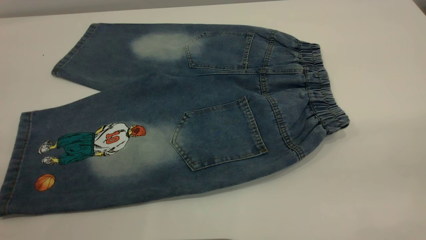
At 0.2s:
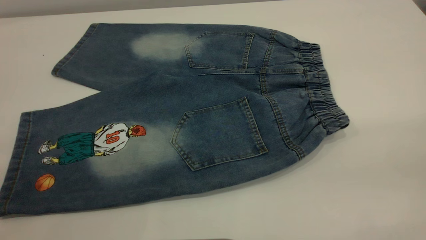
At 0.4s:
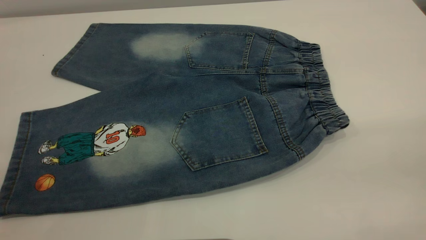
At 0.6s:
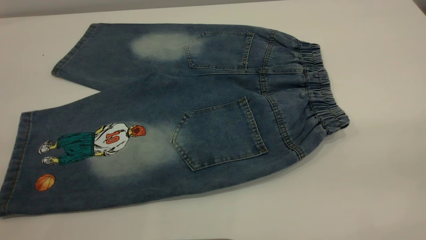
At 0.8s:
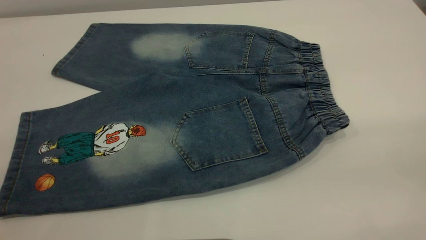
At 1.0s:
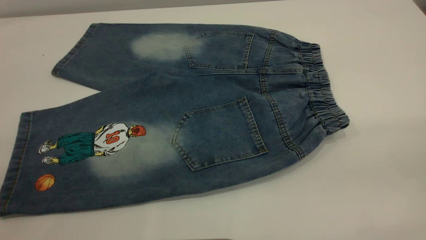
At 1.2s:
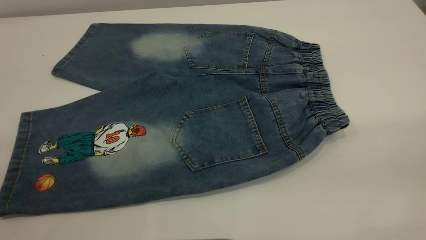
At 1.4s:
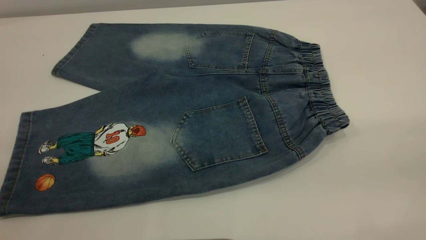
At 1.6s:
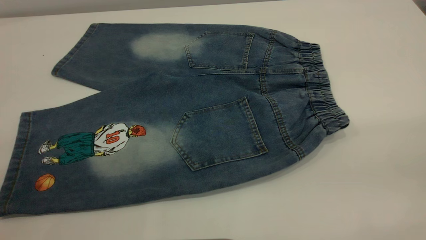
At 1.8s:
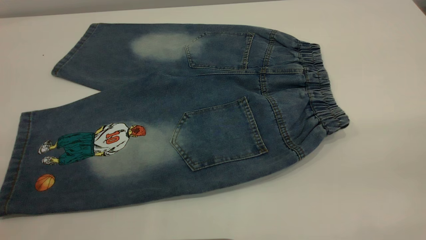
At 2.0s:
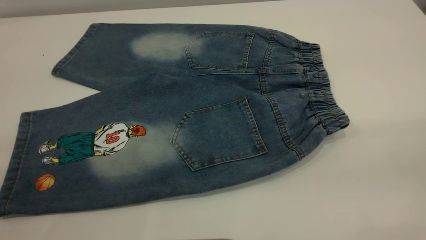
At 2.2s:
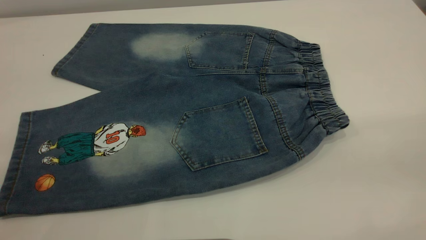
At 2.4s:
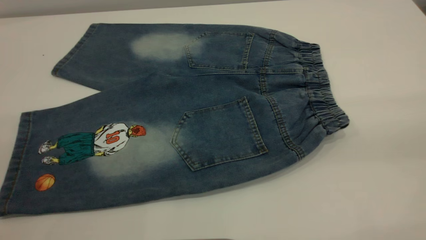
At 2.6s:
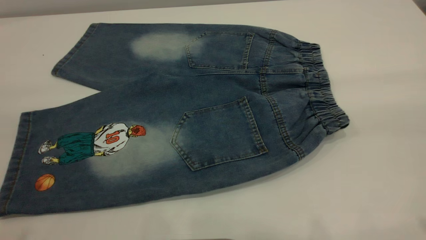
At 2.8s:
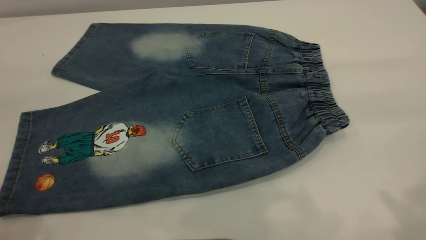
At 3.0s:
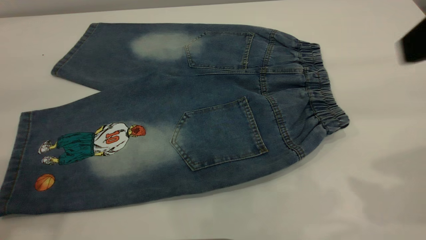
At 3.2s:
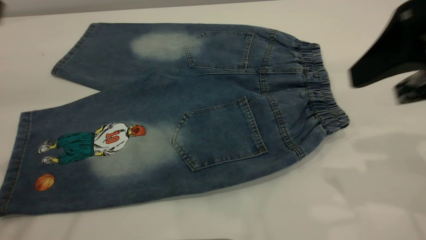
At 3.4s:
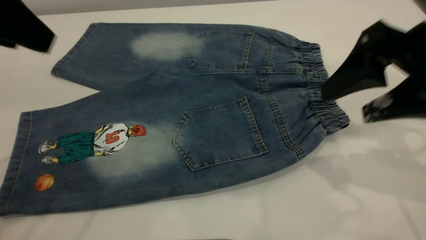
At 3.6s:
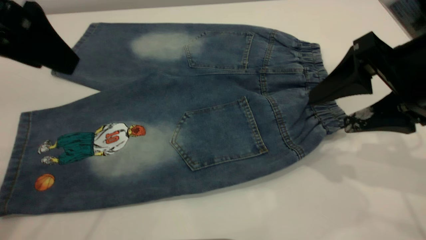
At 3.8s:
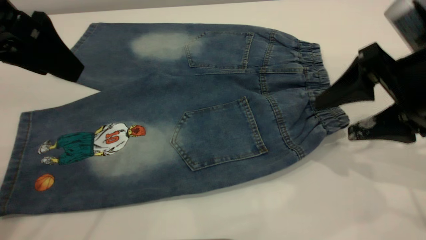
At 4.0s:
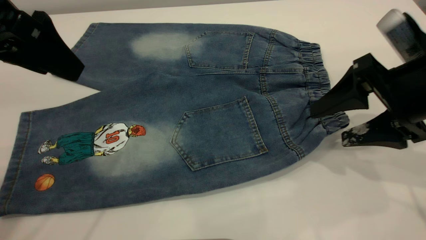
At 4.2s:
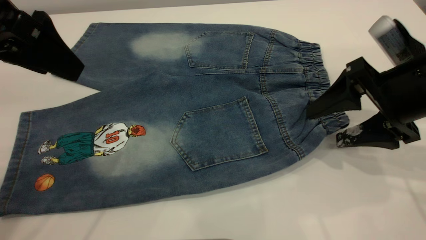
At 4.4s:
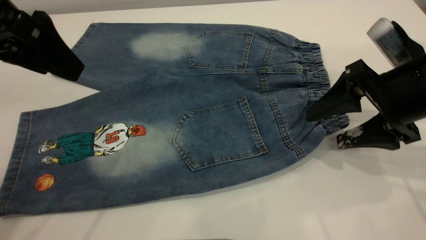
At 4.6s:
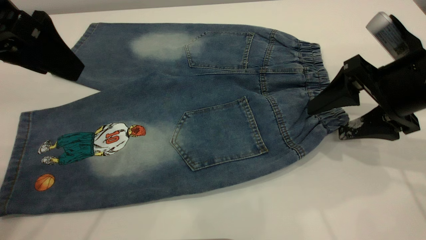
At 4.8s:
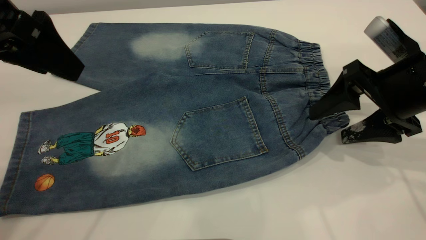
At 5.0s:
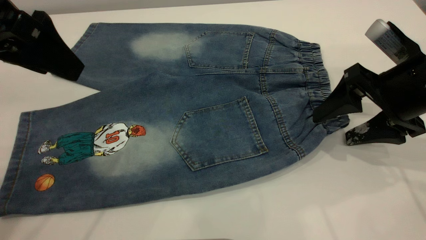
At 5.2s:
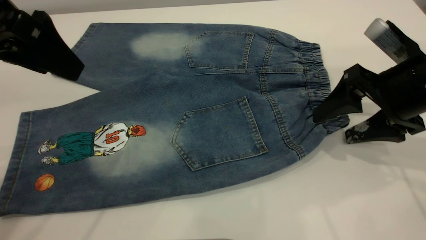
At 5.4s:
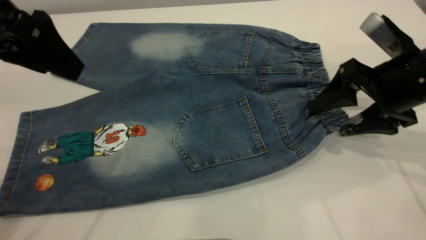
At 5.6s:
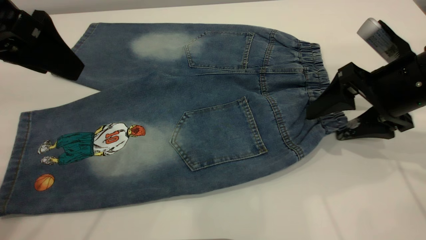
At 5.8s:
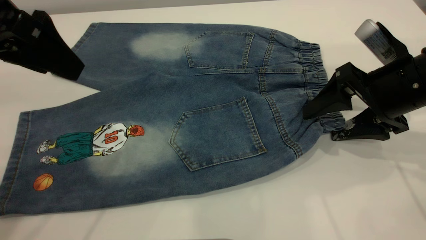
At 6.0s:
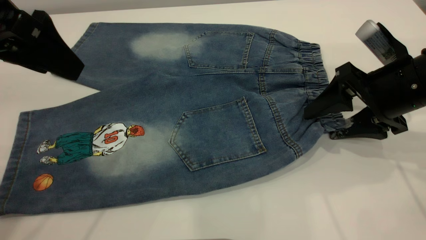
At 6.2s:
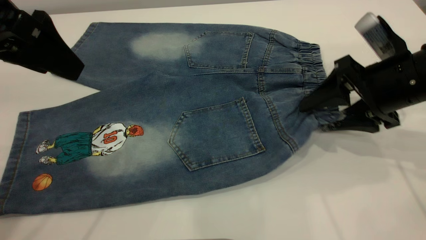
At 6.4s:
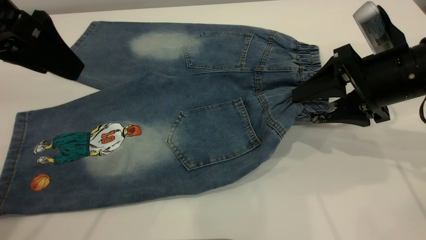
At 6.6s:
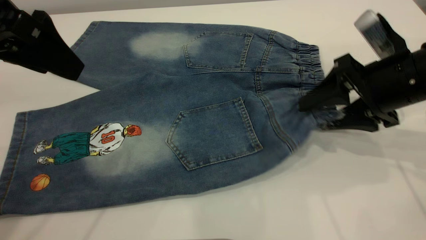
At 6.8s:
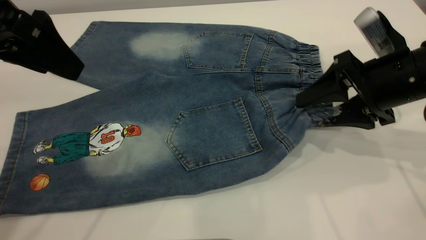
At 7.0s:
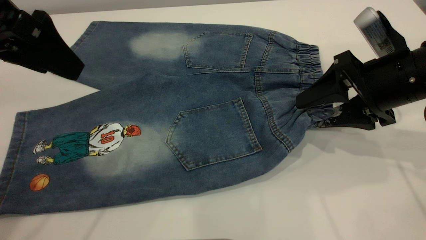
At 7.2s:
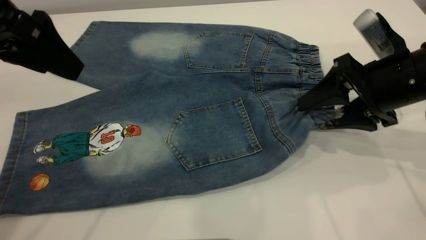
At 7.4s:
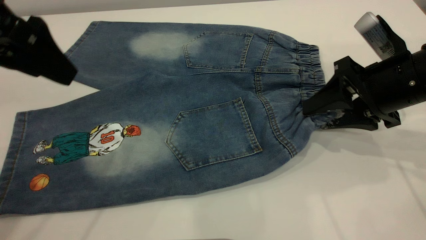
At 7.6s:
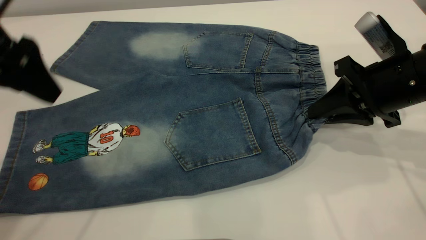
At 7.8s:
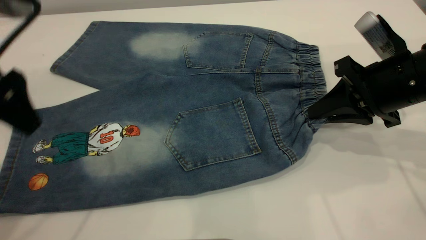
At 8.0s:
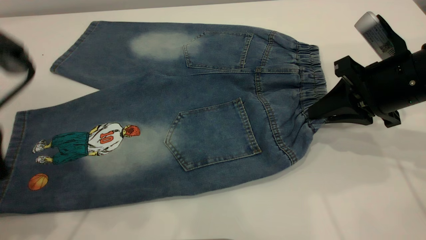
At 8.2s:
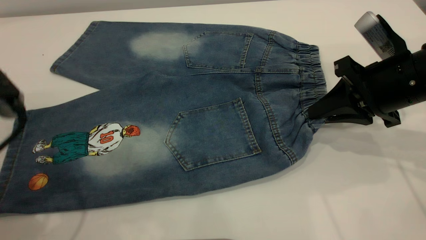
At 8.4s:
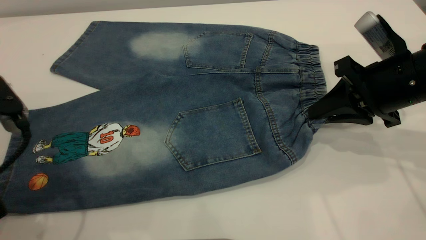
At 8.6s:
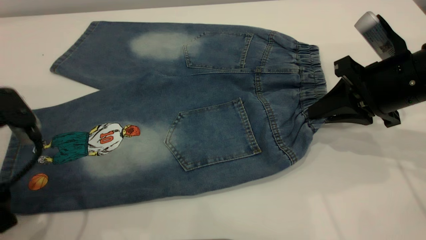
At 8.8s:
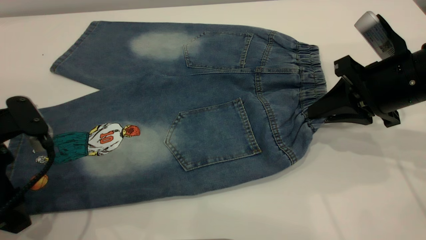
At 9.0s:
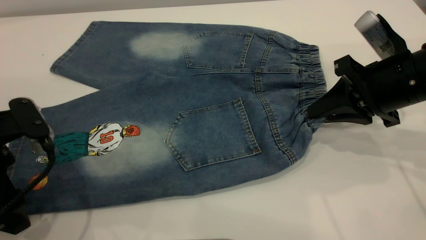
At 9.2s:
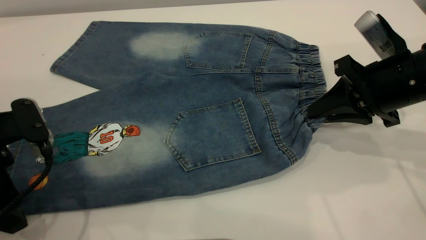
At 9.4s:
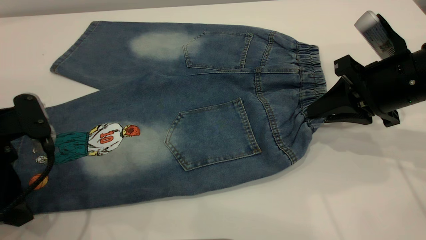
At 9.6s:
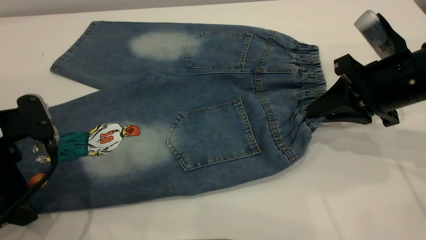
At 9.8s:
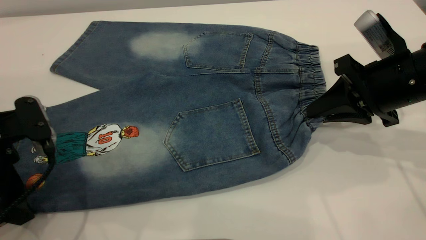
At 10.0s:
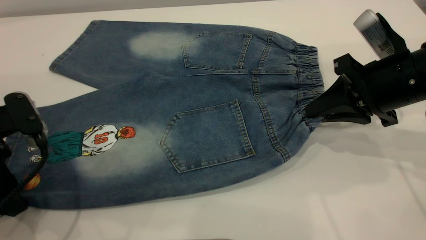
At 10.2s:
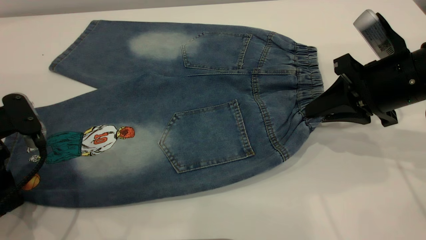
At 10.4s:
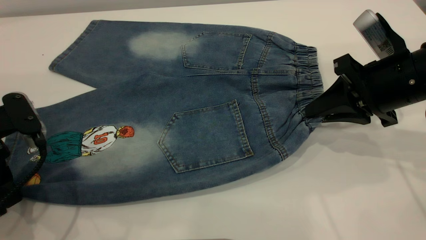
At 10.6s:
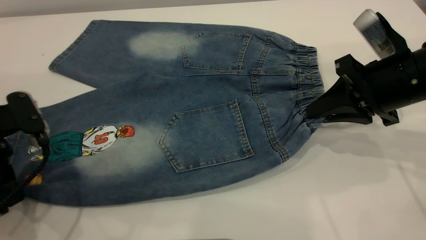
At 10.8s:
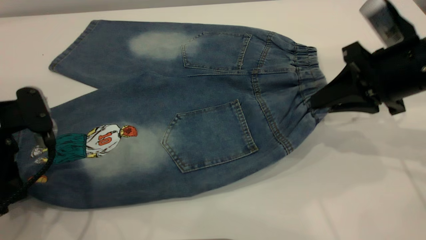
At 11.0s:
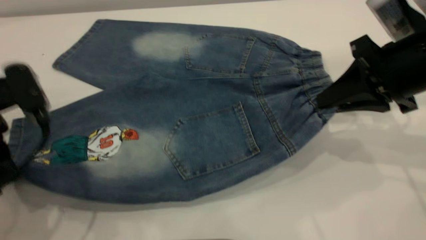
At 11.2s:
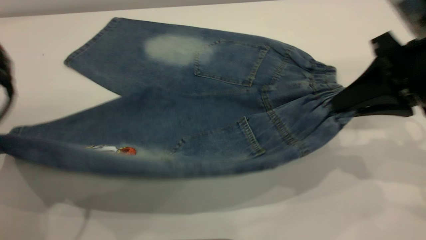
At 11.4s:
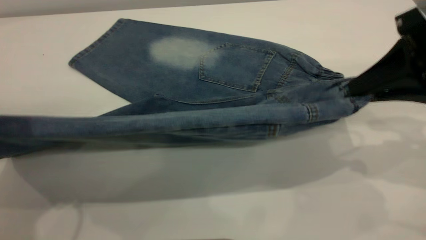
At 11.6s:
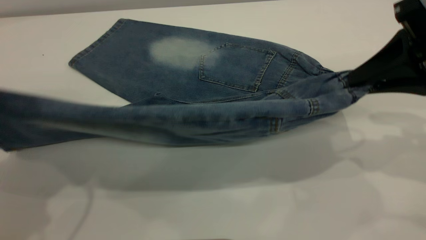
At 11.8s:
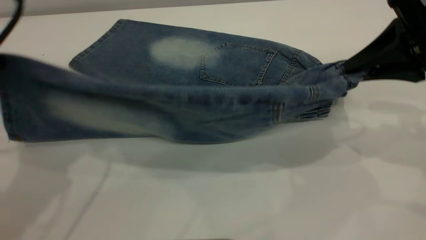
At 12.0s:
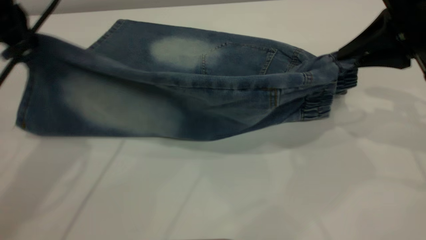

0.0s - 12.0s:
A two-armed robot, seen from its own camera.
0.0s - 1.6s: Both grippers stay about where they are.
1.6s - 3.0s: The right gripper shifts some 20 cm forward.
3.0s - 4.4s: The left gripper shifts some 10 cm downward and forward; the right gripper travels downward and forward by approximately 15 cm.
4.4s - 6.0s: There are only small adjustments of the grippers.
6.0s - 7.6s: The right gripper closes up.
7.6s - 9.0s: The left gripper shifts some 15 cm downward and backward.
9.0s - 10.4s: The left gripper closes.
10.4s - 12.0s: The right gripper moves upward, about 10 cm. Meanwhile the left gripper moves upward and forward, some 20 cm.

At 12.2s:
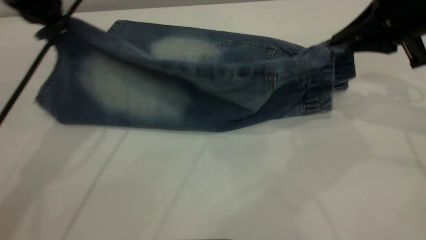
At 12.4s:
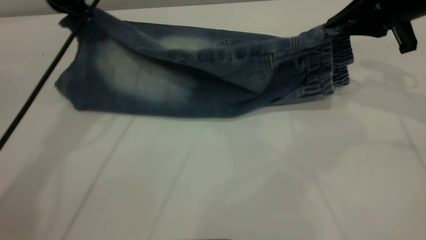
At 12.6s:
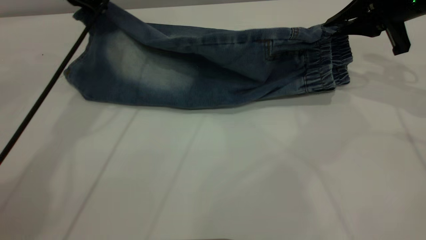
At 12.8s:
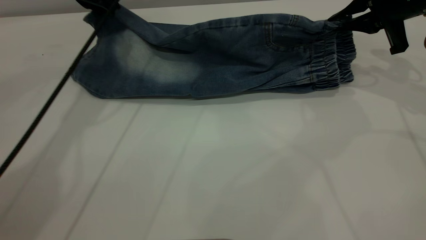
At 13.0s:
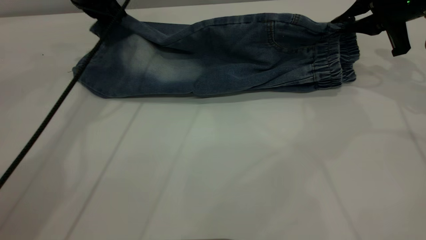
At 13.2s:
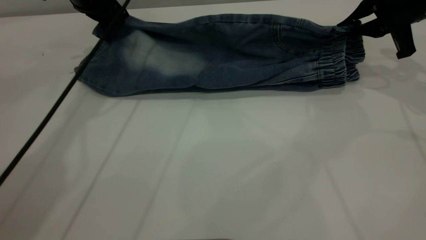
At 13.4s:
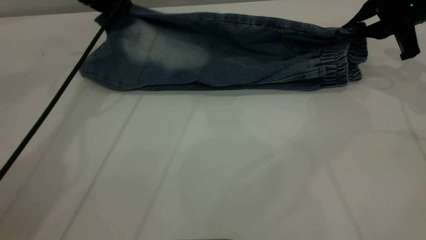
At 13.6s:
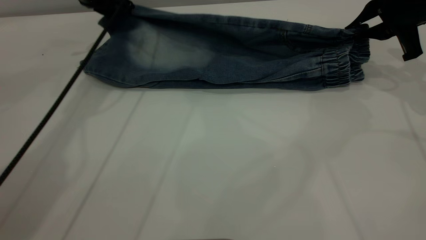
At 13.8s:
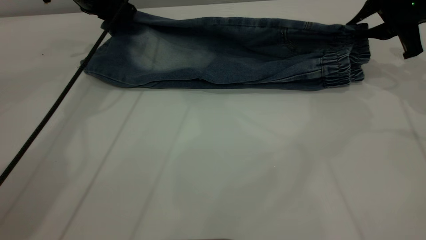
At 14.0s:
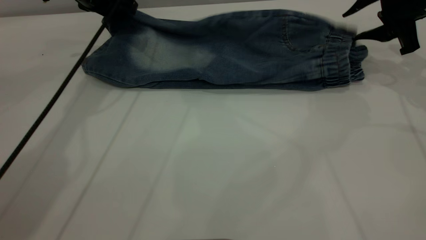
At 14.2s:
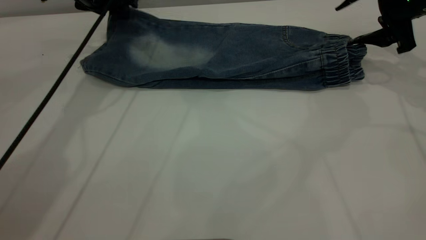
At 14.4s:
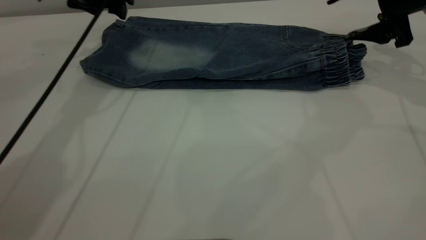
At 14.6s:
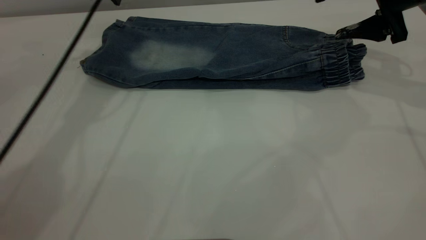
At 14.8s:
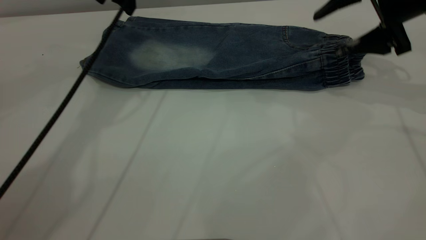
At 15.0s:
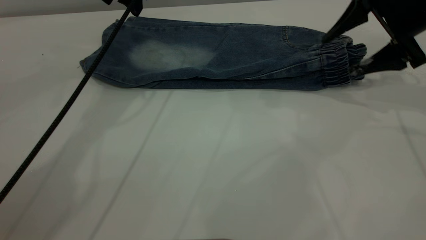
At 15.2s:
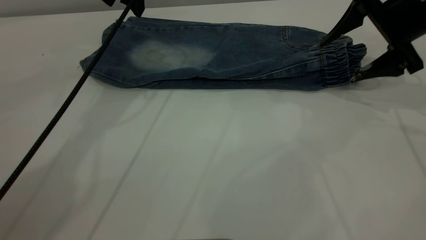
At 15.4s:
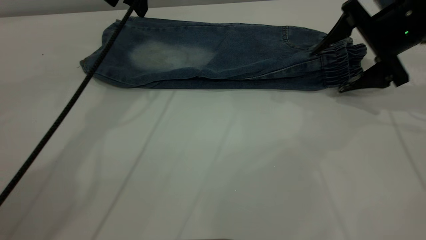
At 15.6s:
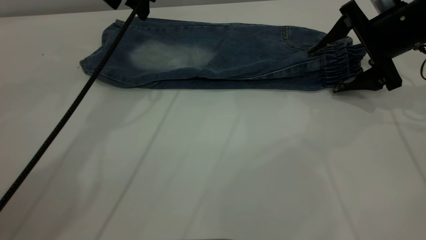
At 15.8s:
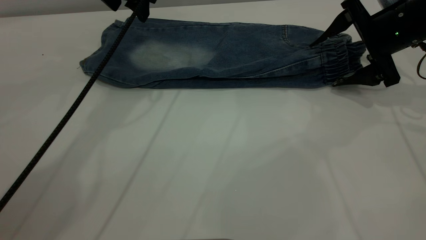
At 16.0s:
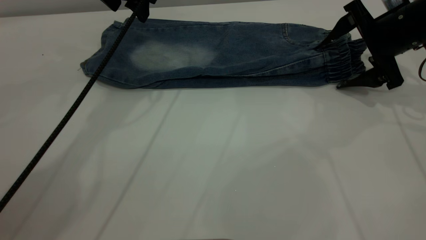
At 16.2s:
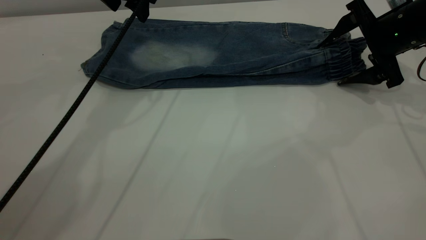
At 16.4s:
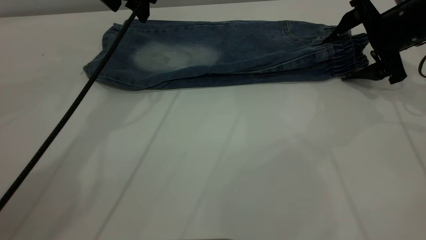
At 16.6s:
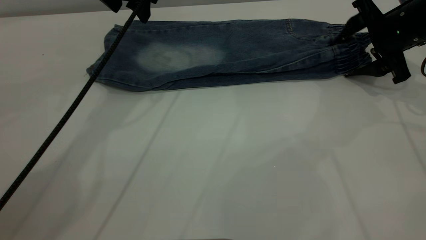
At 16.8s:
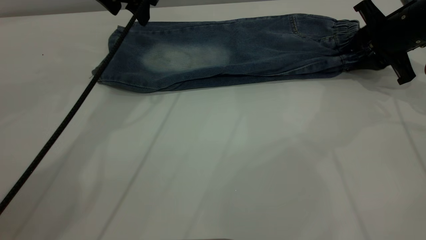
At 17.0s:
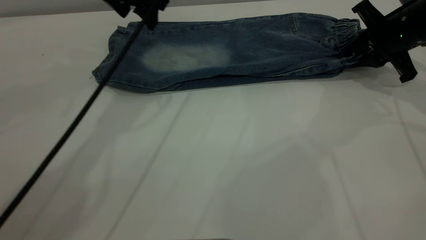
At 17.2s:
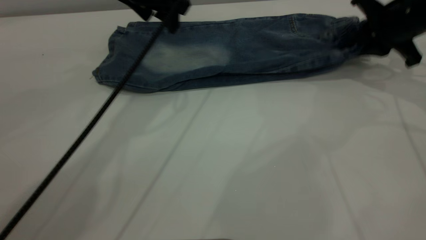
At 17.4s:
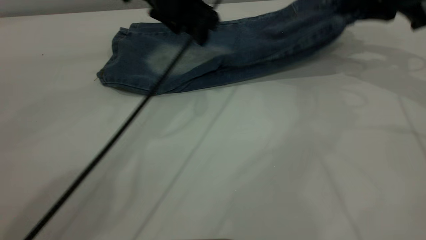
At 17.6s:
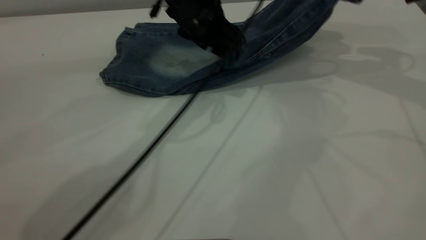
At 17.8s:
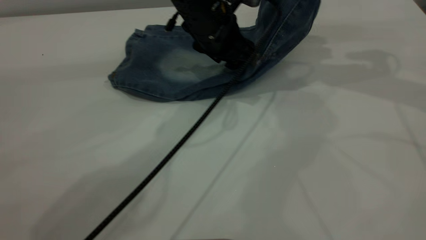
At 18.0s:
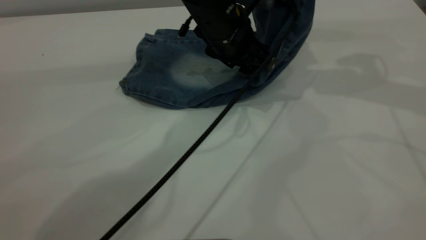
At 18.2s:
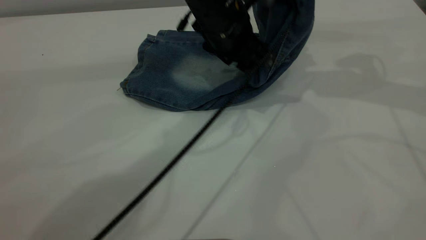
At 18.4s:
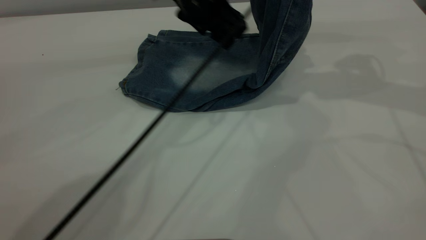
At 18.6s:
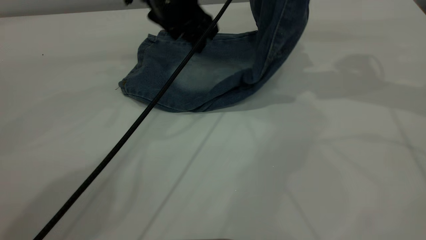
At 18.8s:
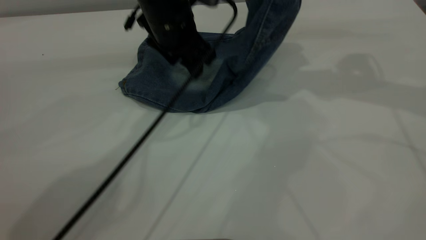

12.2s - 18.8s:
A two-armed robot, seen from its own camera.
Step, 12.2s - 14.4s: Fold the bottom of the pants upward.
12.2s - 13.8s: The left gripper shifts approximately 15 cm forward and downward. The right gripper shifts roughly 5 cm forward.
13.8s - 15.4s: The left gripper shifts approximately 5 cm to the right, and opens; the right gripper opens up.
15.4s - 17.2s: The left gripper travels to the right by some 5 cm, while the right gripper closes up.
17.2s - 18.8s: The right gripper goes about 15 cm upward and to the left. The left gripper shifts about 5 cm downward, and moves approximately 10 cm to the right and comes back.
